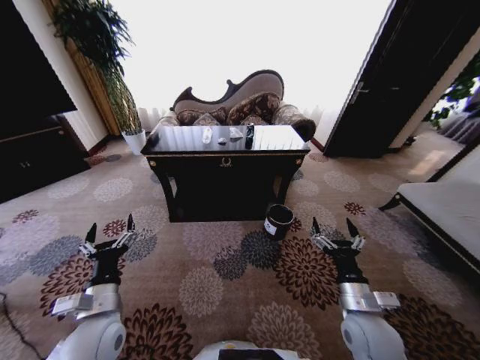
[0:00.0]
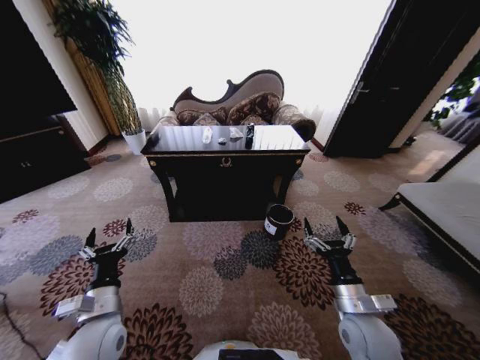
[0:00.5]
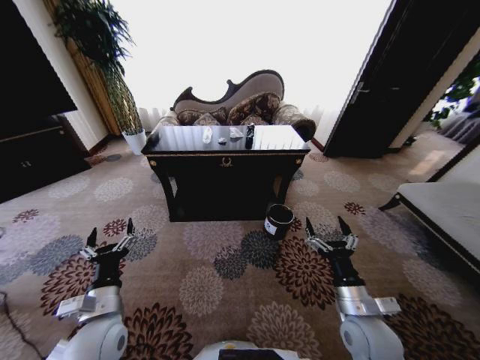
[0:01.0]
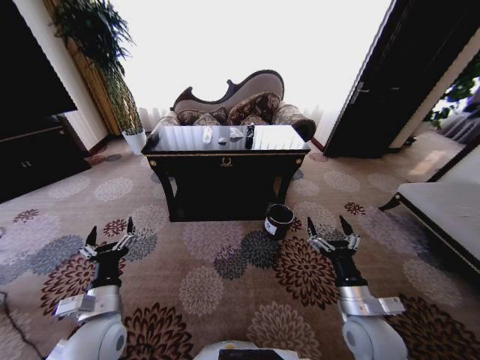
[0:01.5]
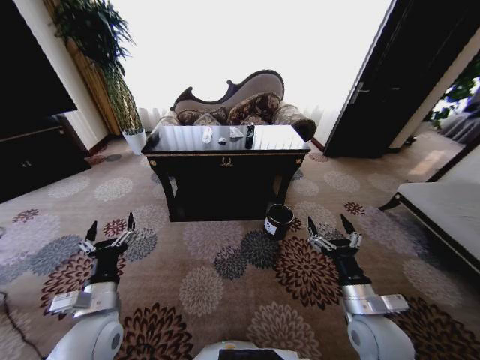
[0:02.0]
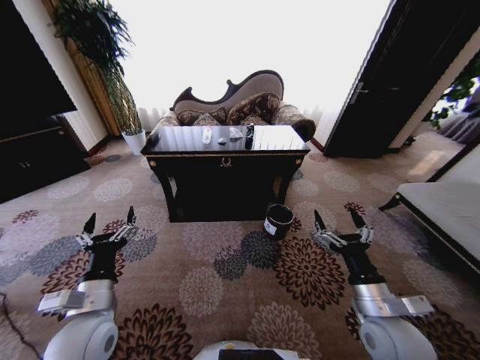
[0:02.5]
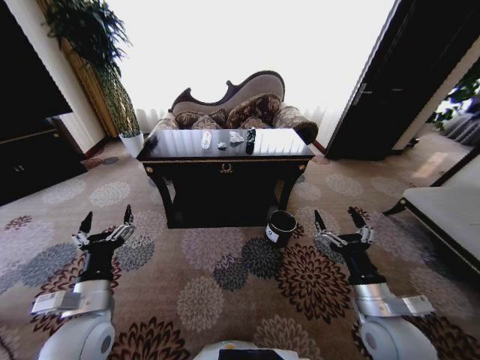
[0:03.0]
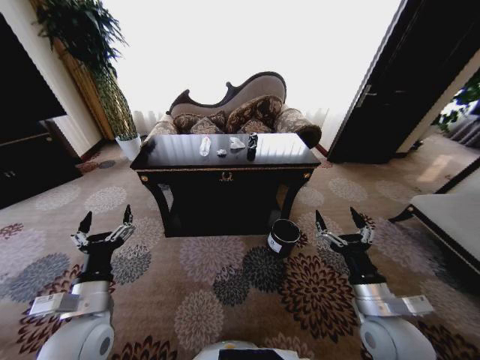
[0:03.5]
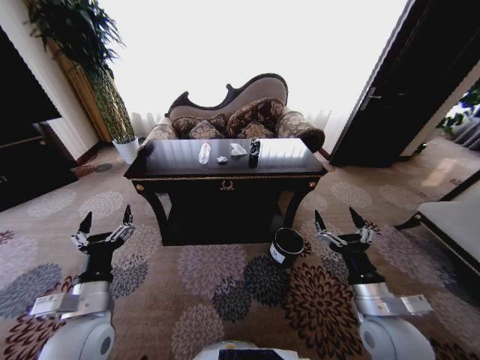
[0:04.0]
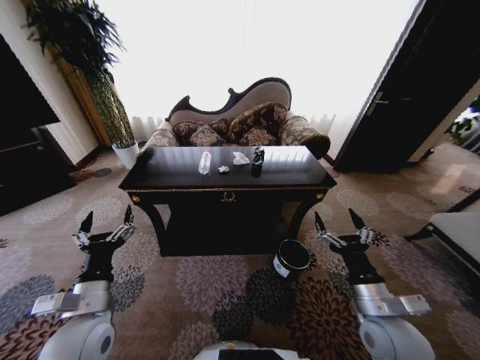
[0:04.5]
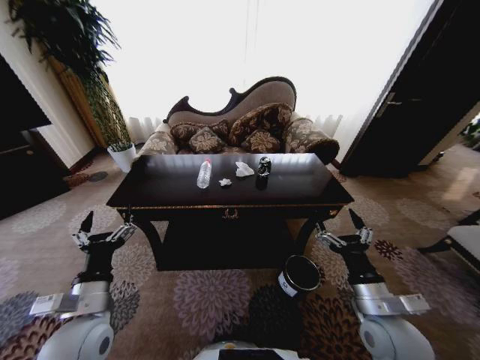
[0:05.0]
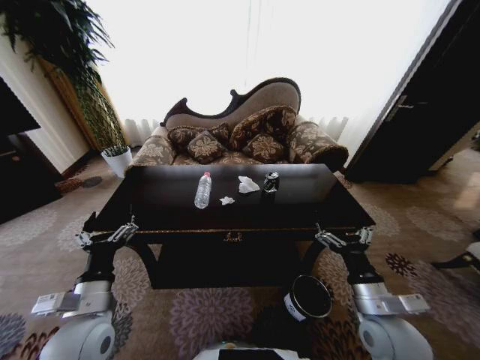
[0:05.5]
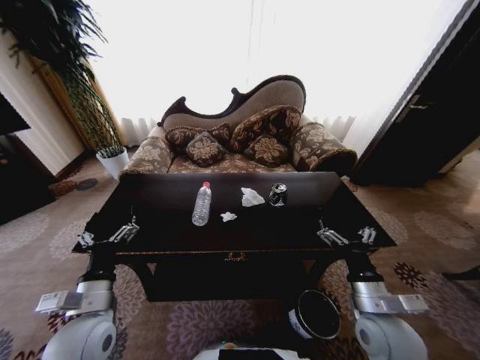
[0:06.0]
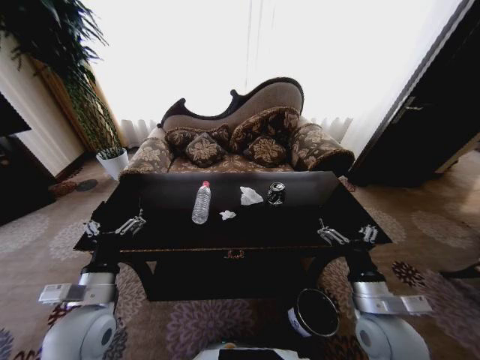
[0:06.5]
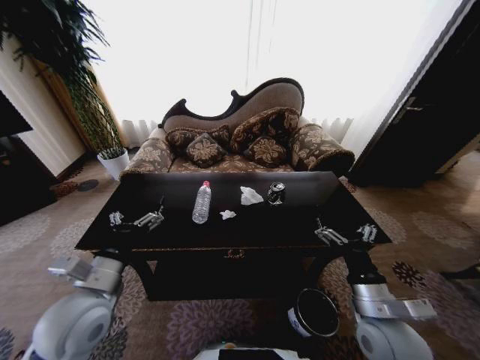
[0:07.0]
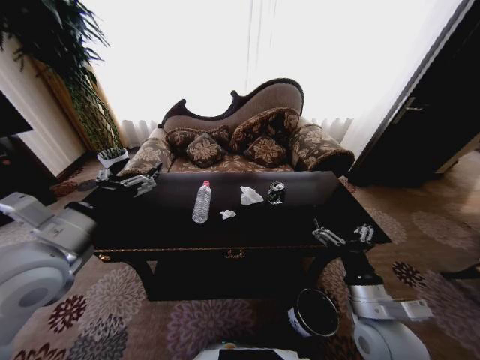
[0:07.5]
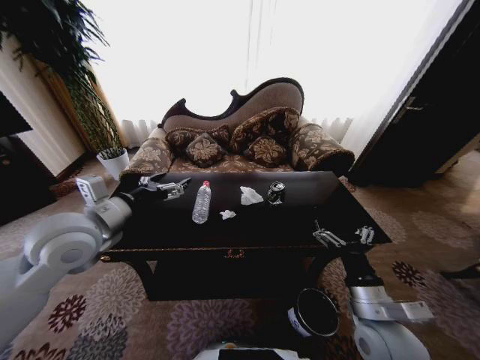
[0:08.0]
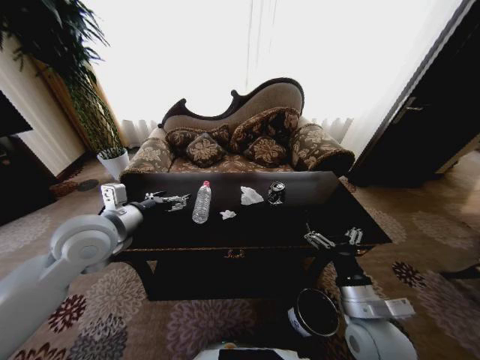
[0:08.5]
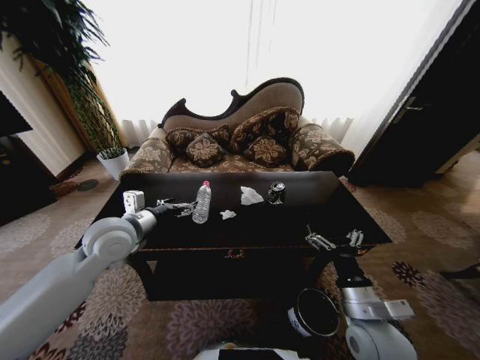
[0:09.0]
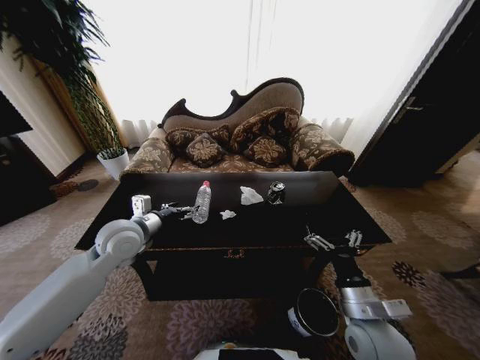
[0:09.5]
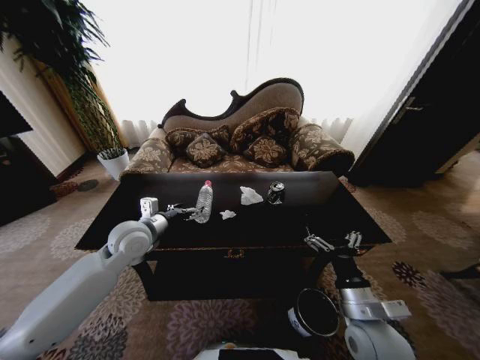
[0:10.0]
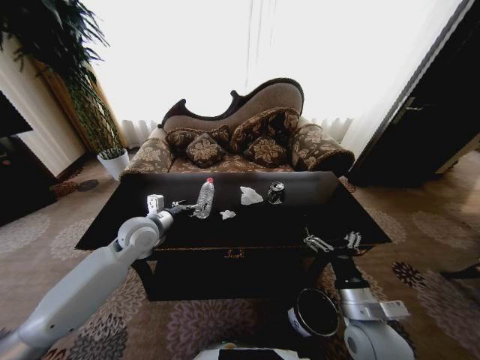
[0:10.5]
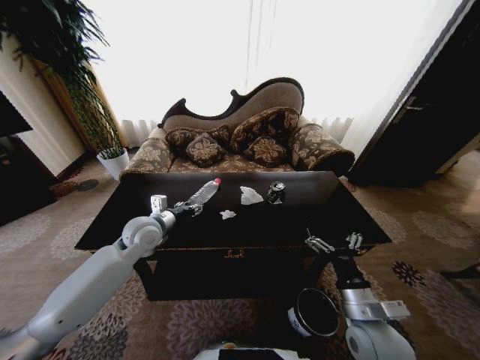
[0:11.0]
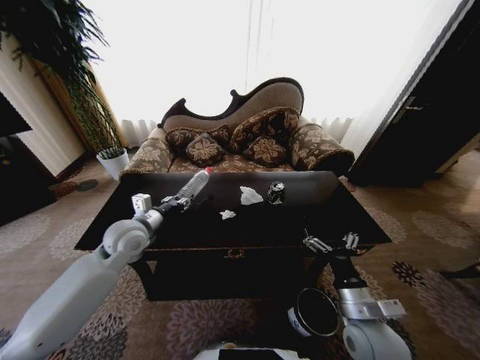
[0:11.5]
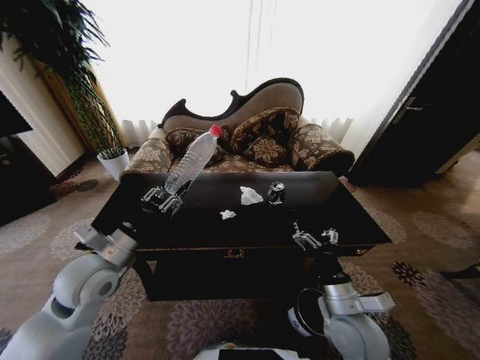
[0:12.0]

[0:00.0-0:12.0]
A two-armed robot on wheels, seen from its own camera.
Task of the whole recording: Move to the front of the table and place the trash on the table into the trash bin.
0:06.0 to 0:08.0: The left gripper is displaced upward and forward by approximately 20 cm.
0:08.0 to 0:10.0: The left gripper moves downward and forward, roughly 15 cm.
0:10.0 to 0:12.0: The left gripper travels backward by approximately 10 cm, and closes its fingers.

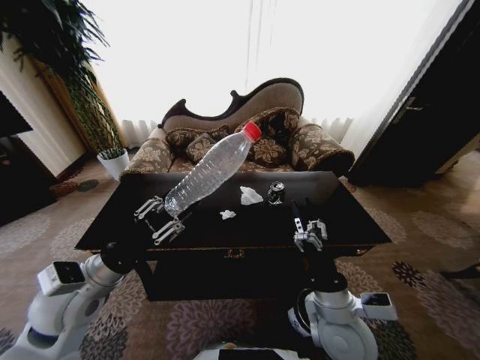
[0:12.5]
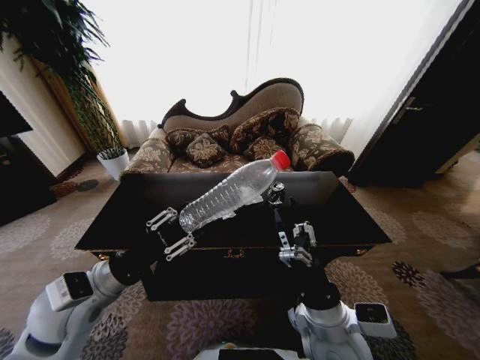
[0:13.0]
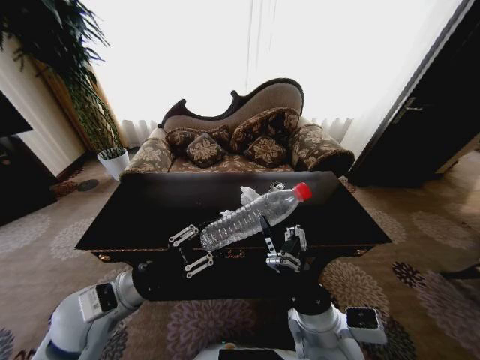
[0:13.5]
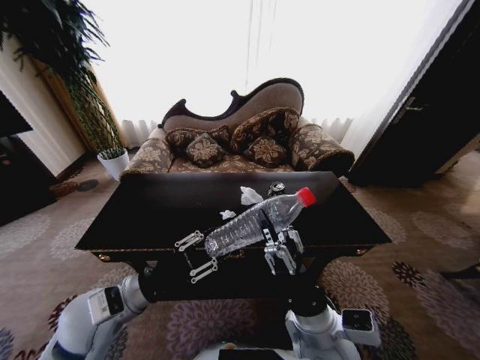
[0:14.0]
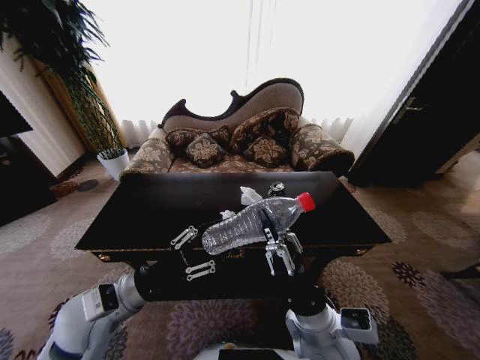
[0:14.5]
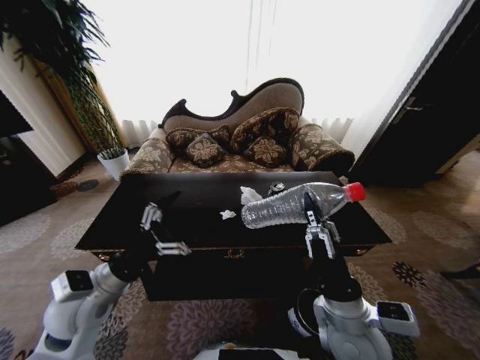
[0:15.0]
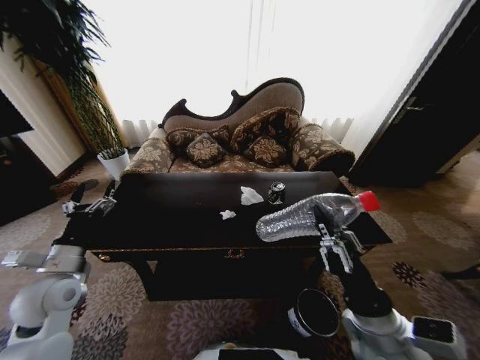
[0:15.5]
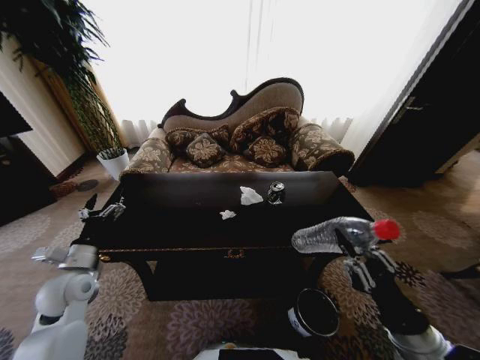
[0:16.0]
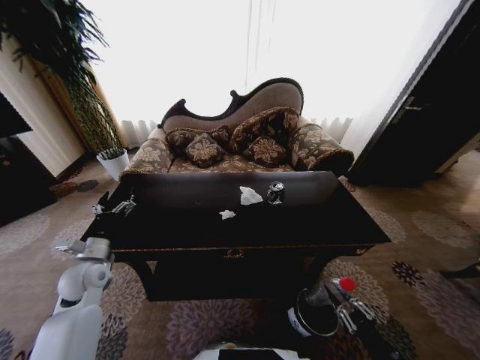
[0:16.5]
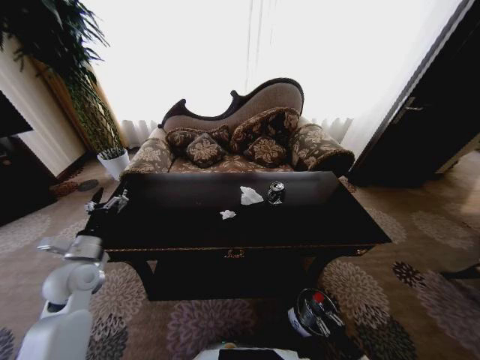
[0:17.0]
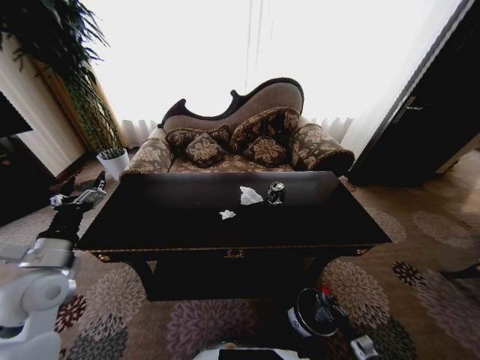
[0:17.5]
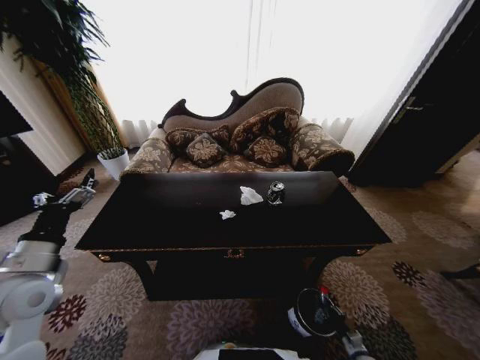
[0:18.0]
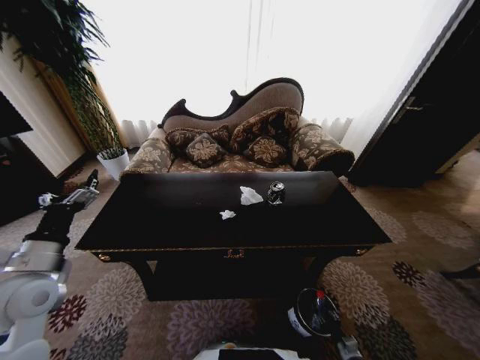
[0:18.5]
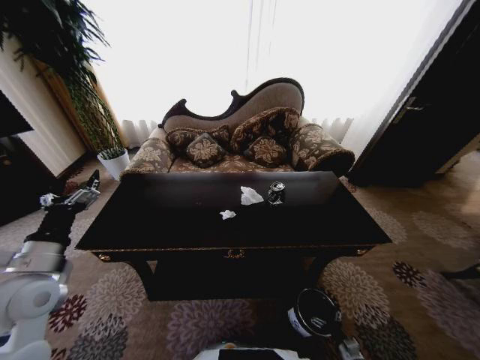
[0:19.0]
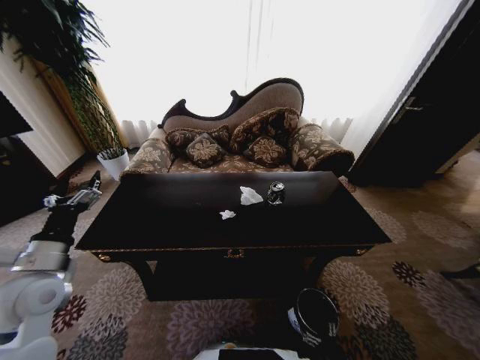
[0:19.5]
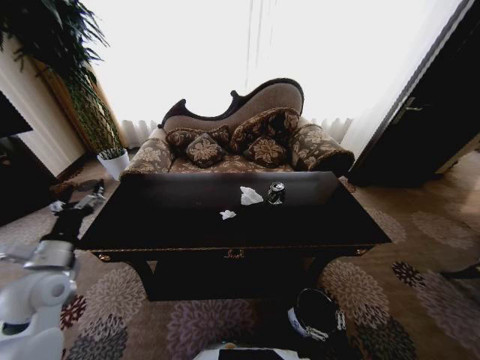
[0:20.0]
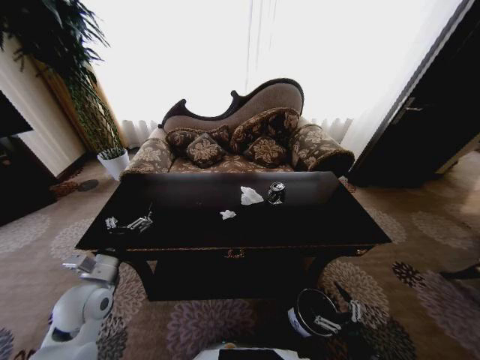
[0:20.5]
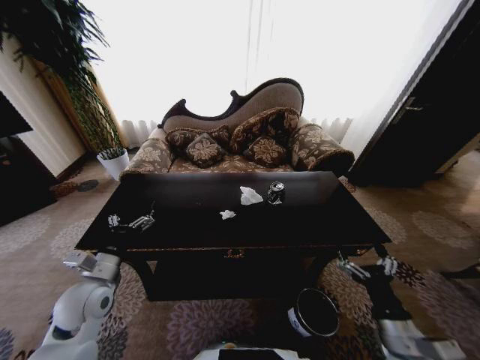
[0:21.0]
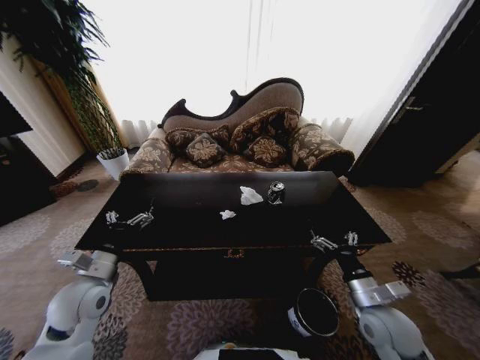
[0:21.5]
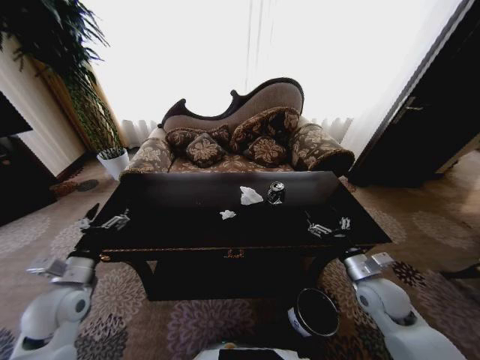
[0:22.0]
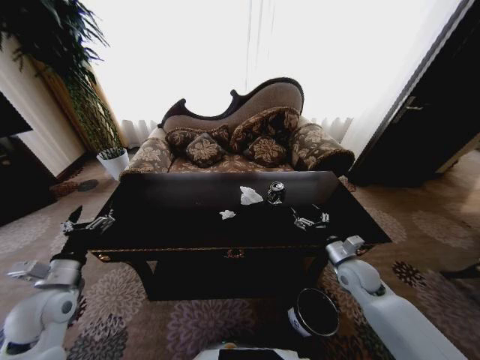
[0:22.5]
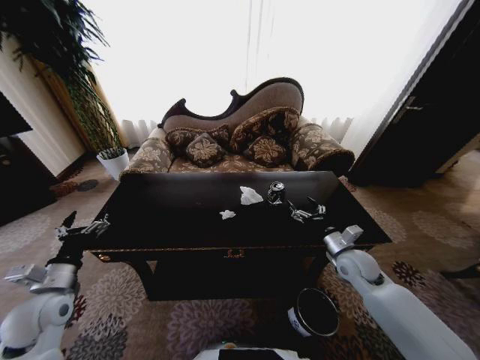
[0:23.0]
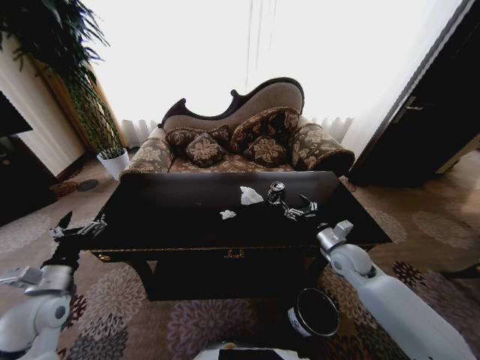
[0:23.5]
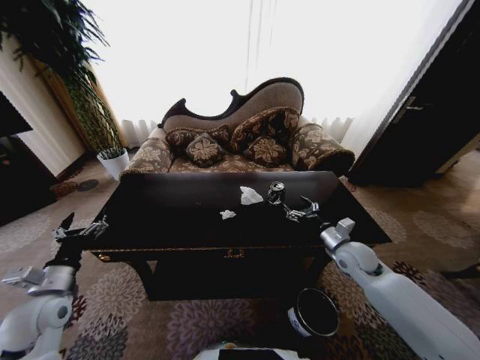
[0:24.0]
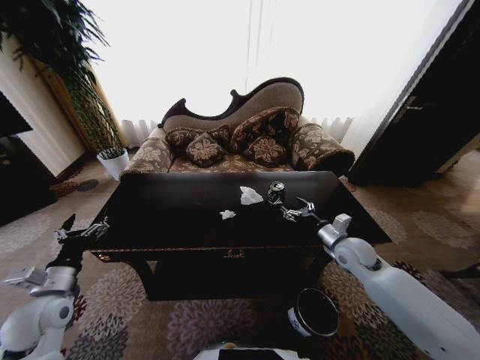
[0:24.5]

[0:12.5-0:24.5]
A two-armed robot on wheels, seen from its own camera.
Task of the whole recording: Move to the front of the table and place the trash on the table into the trash bin.
0:12.5 to 0:14.5: The right gripper shifts by approximately 5 cm, and closes its fingers.
0:14.5 to 0:16.5: The left gripper heads to the left, forward and downward, covering about 20 cm, and opens its fingers. The right gripper goes some 30 cm to the right, downward and backward.
0:16.5 to 0:18.5: The left gripper travels upward and backward by approximately 15 cm, while the right gripper moves downward, about 25 cm.
0:18.5 to 0:20.5: The left gripper is displaced downward and to the right by approximately 10 cm, while the right gripper moves upward, roughly 25 cm, and opens its fingers.
0:20.5 to 0:22.5: The right gripper is displaced forward by roughly 30 cm. The left gripper moves to the left, approximately 5 cm.
0:22.5 to 0:24.5: The right gripper ends up about 5 cm from where it was.

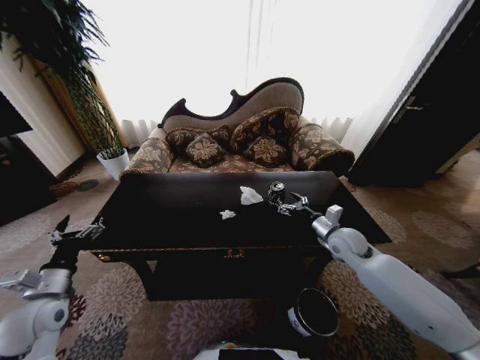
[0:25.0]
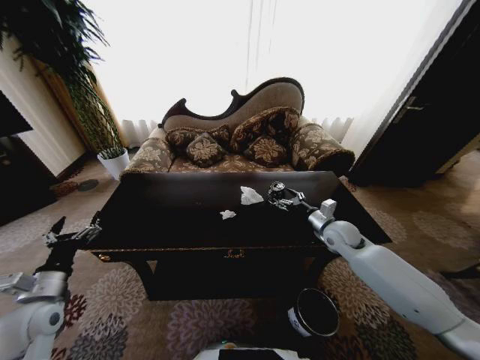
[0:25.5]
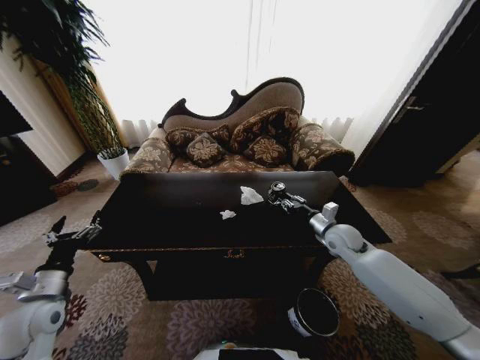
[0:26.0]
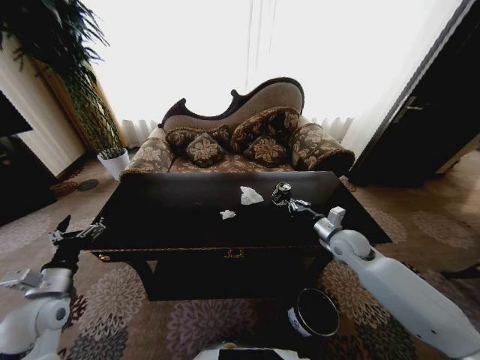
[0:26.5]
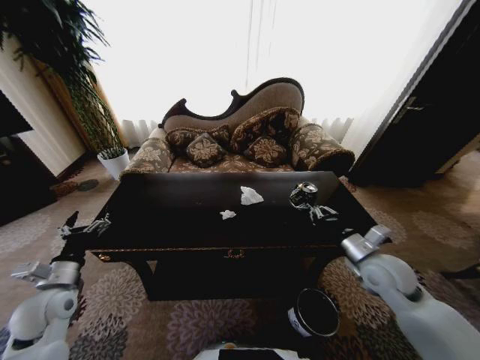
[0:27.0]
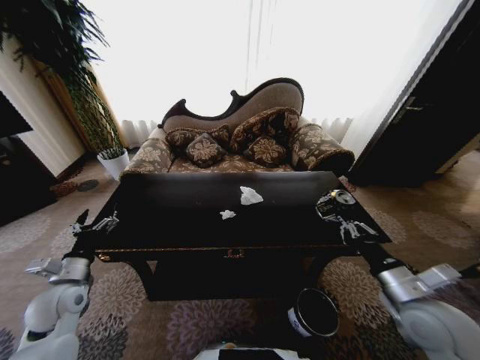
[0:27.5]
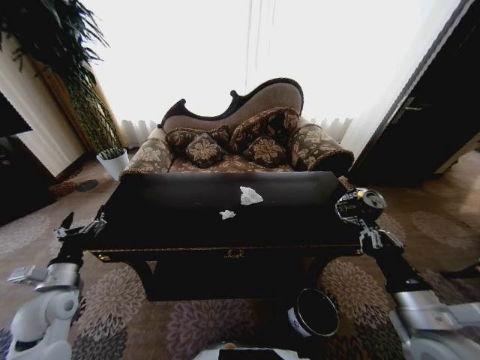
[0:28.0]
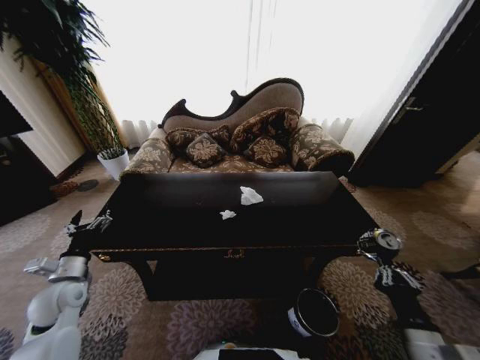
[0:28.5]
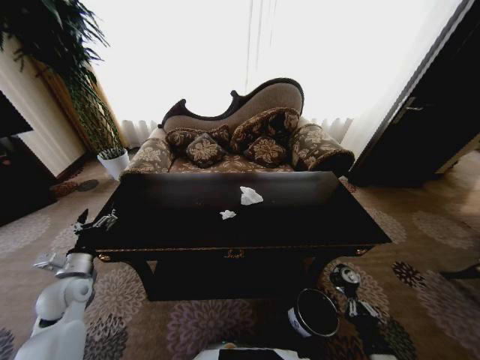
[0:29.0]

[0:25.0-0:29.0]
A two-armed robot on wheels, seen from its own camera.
Task of the whole recording: Move to the front of the table and place the trash on the table into the trash bin.
0:25.0 to 0:27.0: The right gripper travels backward by about 10 cm, and closes up.
0:27.0 to 0:29.0: The right gripper goes about 30 cm backward and downward.
